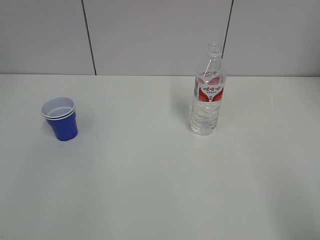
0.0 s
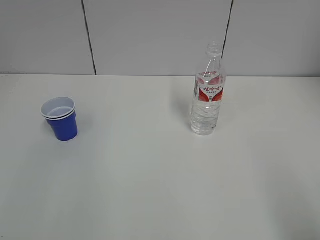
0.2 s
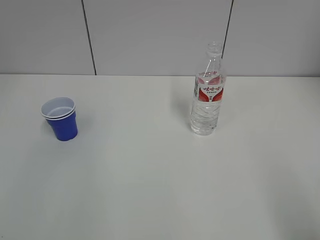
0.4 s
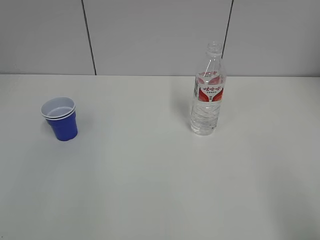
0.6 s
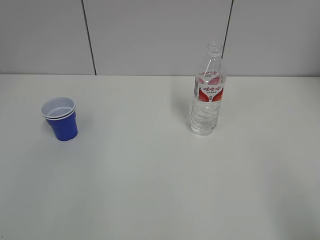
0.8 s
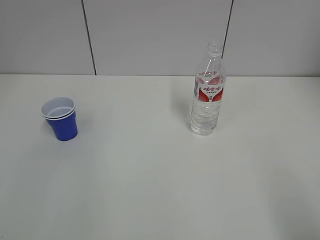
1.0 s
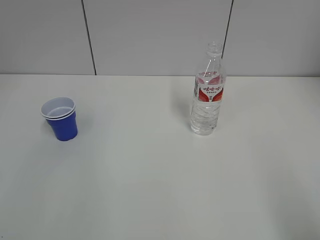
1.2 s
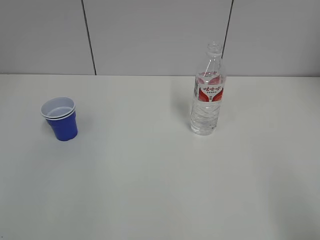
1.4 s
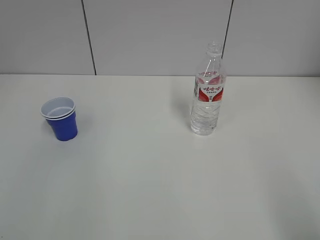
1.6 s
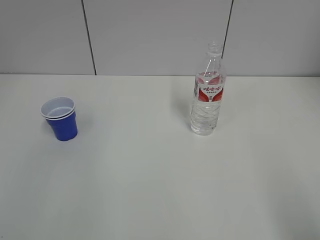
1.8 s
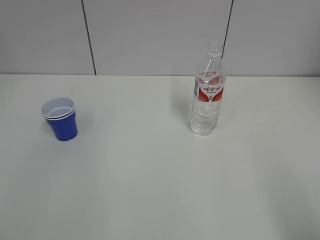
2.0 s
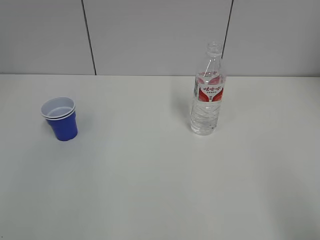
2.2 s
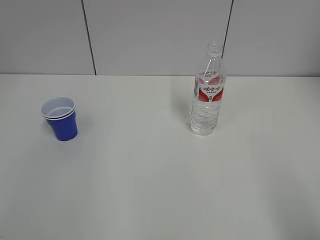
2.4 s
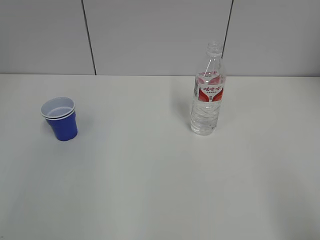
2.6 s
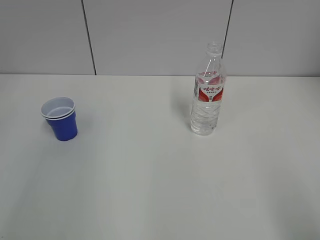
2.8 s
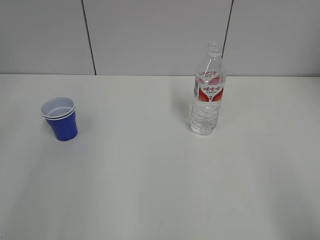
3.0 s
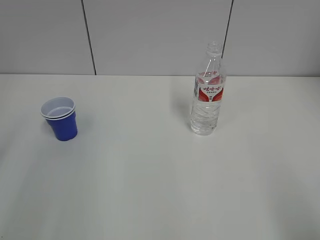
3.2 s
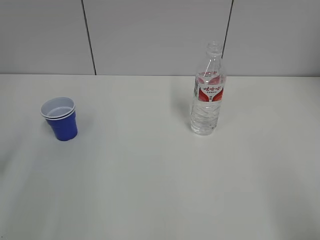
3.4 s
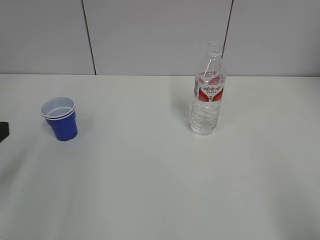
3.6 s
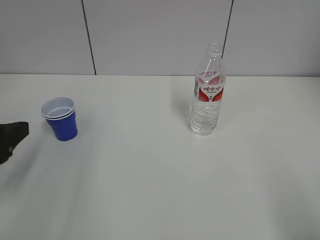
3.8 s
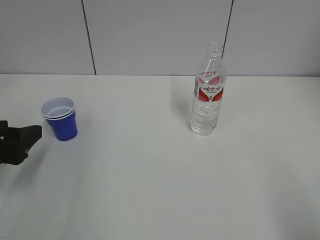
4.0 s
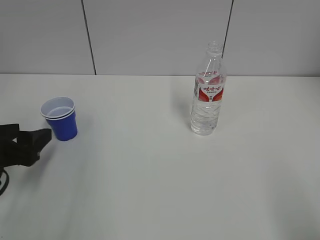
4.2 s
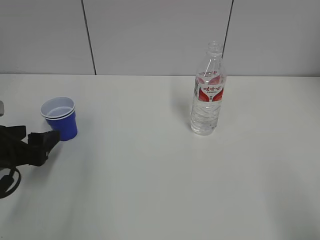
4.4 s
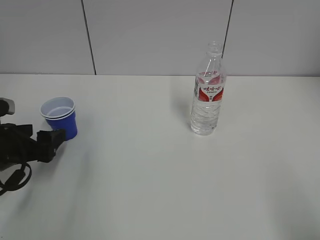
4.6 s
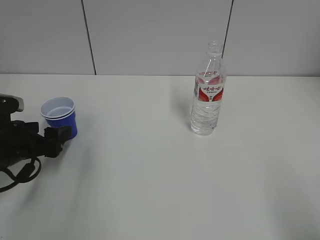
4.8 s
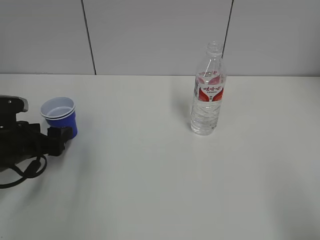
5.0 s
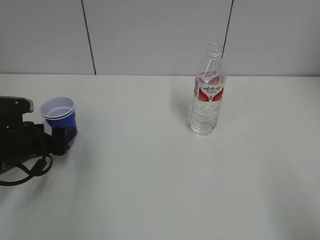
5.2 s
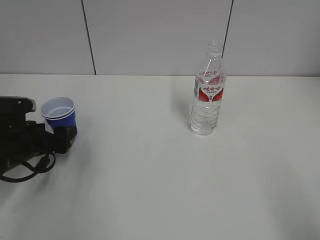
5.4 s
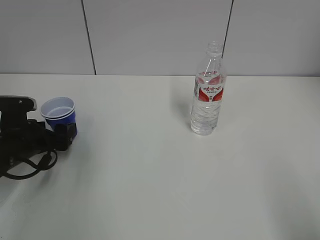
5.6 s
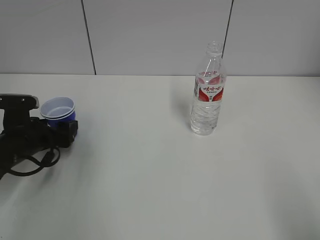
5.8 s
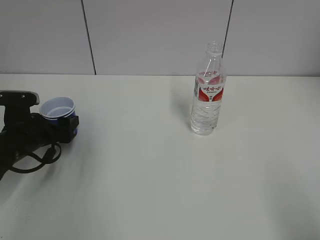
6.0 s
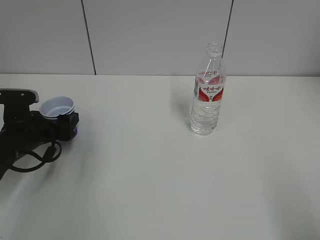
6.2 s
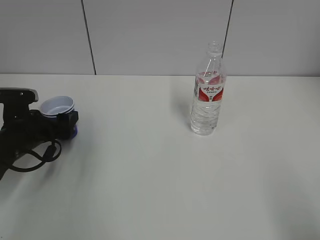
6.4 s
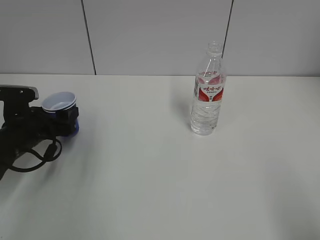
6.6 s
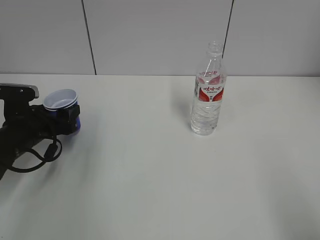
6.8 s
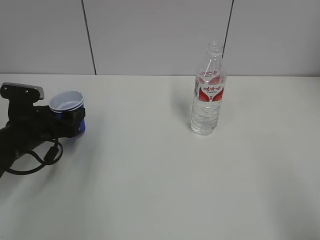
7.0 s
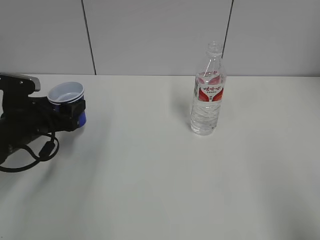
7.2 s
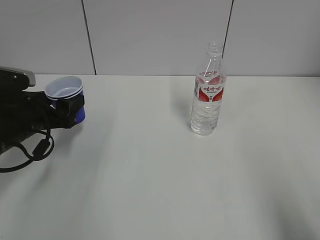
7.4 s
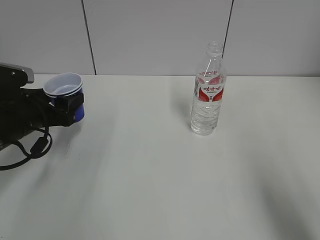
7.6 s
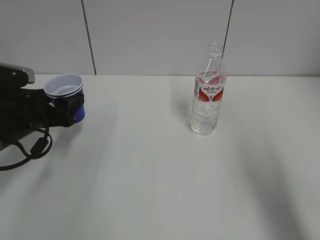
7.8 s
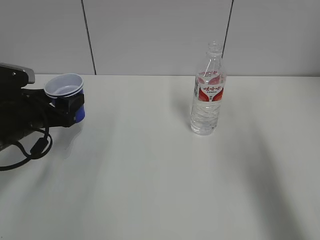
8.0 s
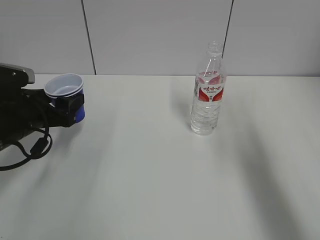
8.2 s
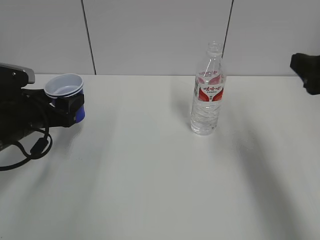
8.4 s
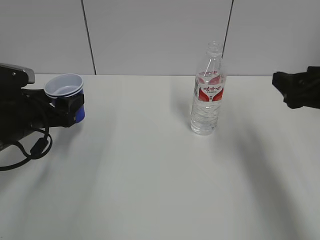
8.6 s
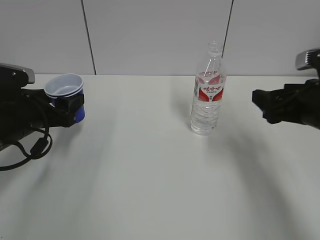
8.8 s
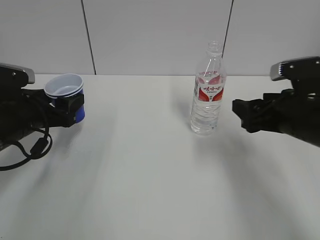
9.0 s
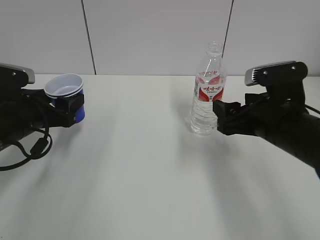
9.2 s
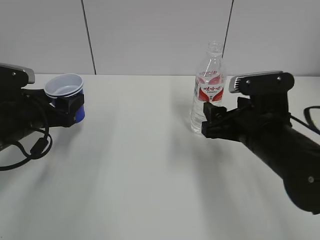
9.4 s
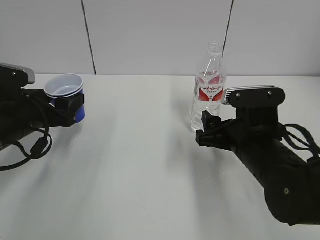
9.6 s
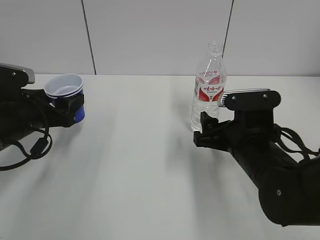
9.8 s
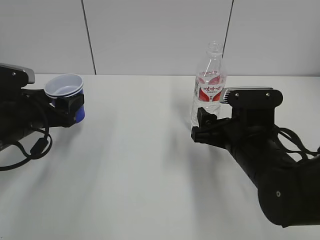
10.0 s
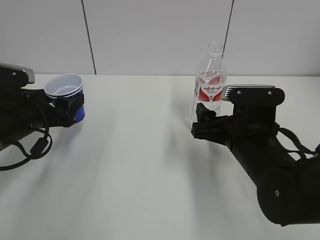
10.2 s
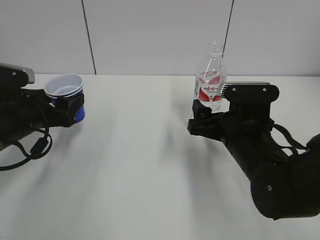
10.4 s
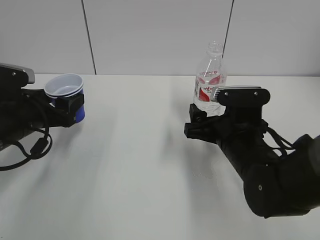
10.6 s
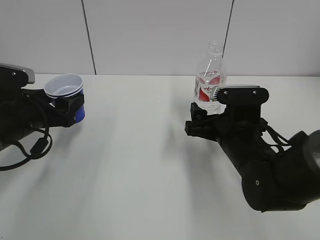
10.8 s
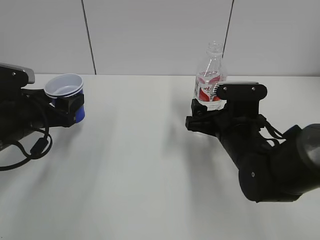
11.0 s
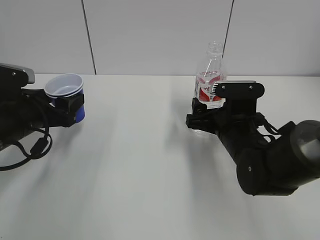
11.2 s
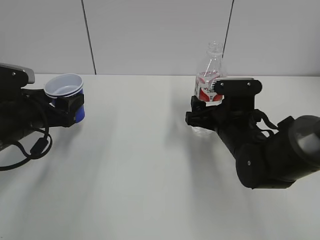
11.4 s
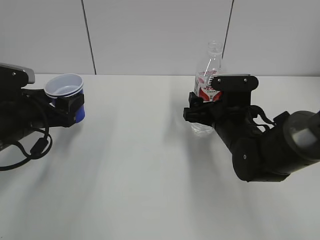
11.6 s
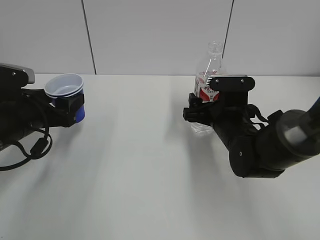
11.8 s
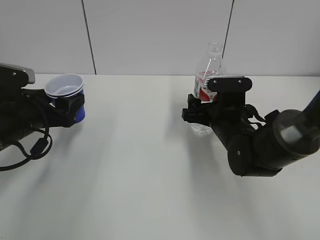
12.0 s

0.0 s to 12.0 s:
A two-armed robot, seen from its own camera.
Step, 0.0 to 6.2 s: Grab the paper cup with the left hand.
Step, 6.4 to 7.2 s: Lift the paper cup with the left hand.
3.0 to 4.4 s: The left gripper is displaced downward and forward by approximately 20 cm.
4.4 to 6.0 s: The left gripper goes about 10 cm forward and downward.
6.0 to 7.6 s: The left gripper shifts about 5 cm upward. Meanwhile the right gripper goes approximately 10 cm forward.
7.6 to 9.0 s: The right gripper shifts roughly 25 cm forward, downward and to the left.
9.0 to 10.4 s: The right gripper heads to the left, covering approximately 10 cm, and opens up.
10.4 to 12.0 s: The right gripper is displaced forward by some 10 cm.

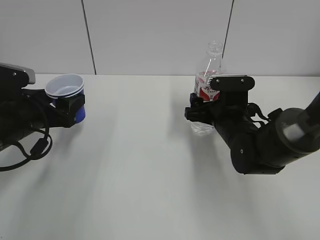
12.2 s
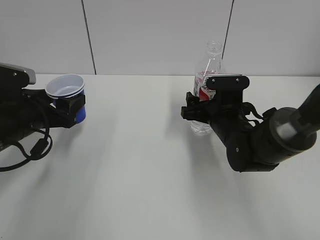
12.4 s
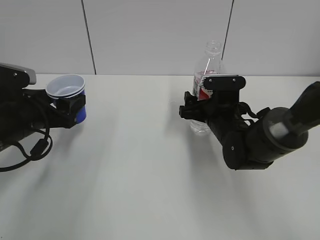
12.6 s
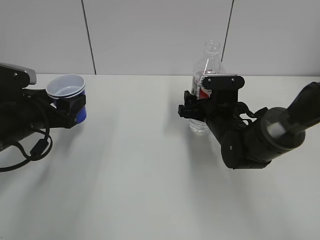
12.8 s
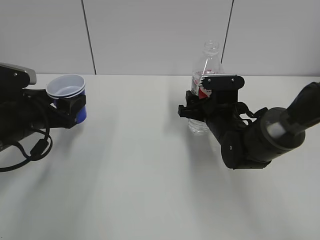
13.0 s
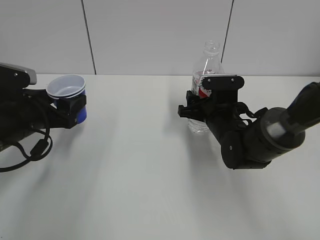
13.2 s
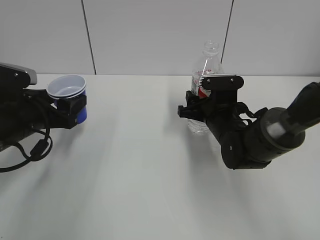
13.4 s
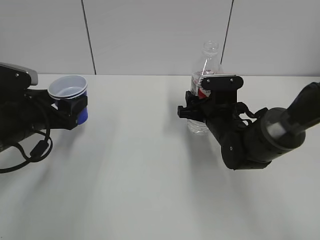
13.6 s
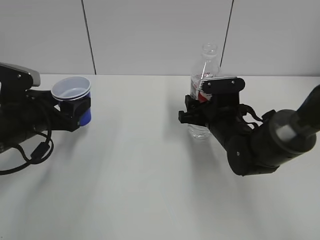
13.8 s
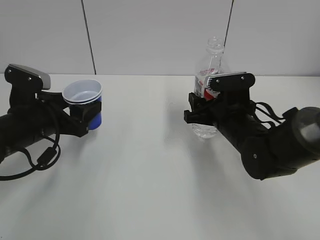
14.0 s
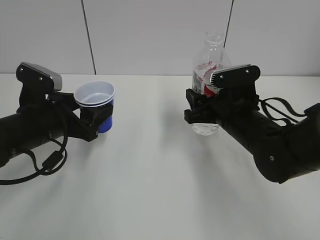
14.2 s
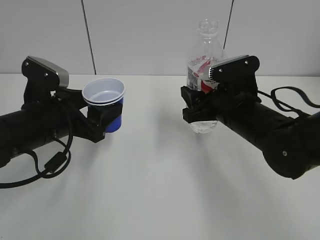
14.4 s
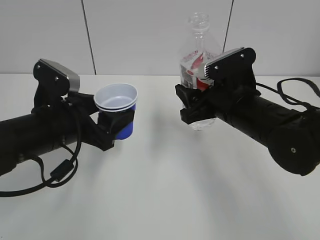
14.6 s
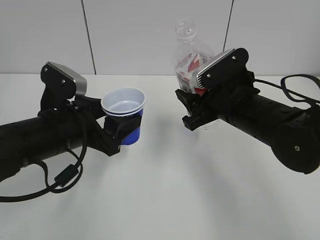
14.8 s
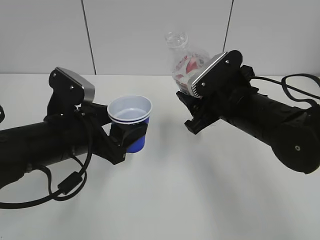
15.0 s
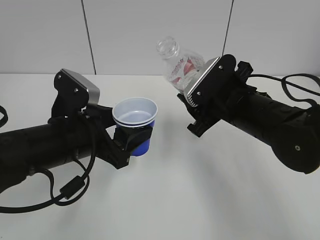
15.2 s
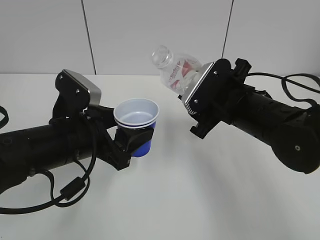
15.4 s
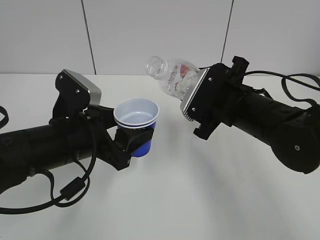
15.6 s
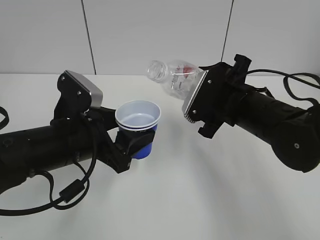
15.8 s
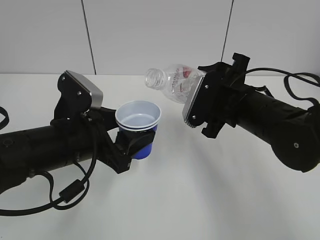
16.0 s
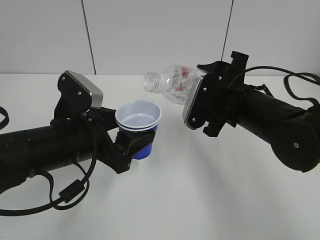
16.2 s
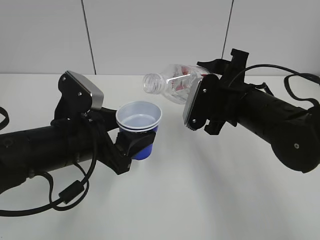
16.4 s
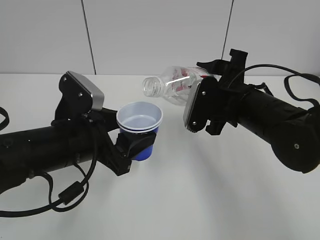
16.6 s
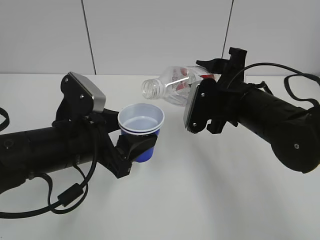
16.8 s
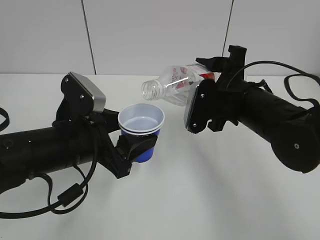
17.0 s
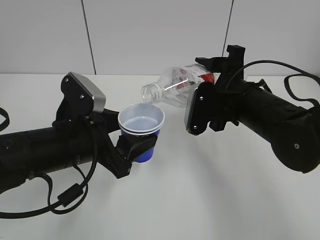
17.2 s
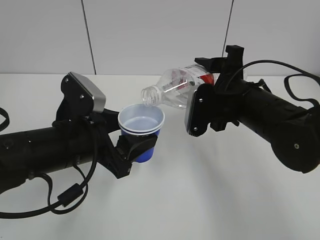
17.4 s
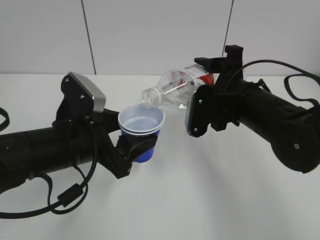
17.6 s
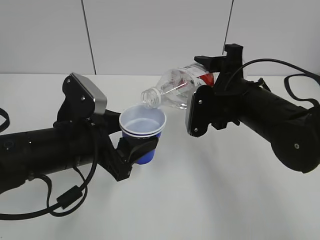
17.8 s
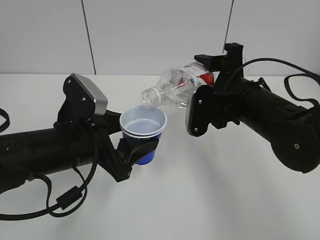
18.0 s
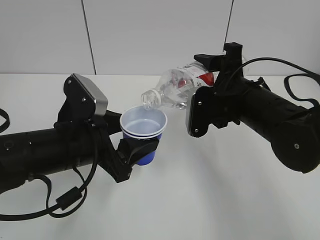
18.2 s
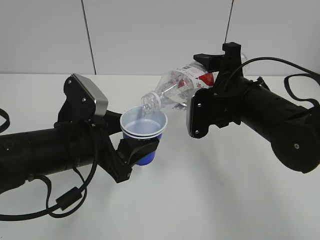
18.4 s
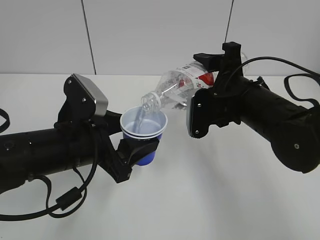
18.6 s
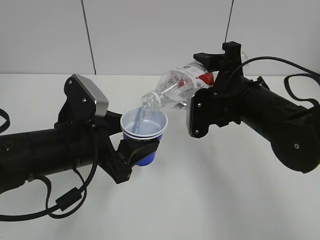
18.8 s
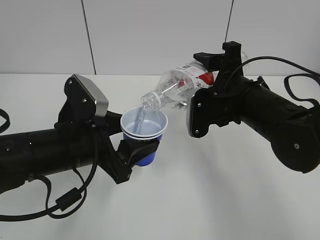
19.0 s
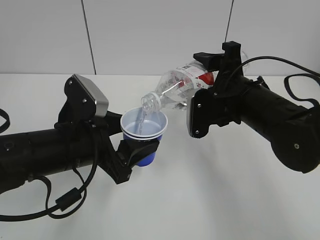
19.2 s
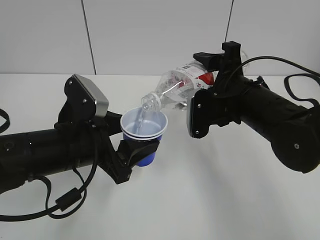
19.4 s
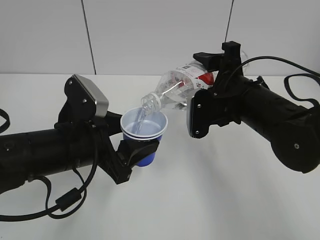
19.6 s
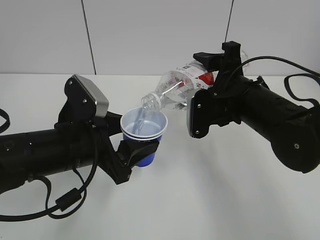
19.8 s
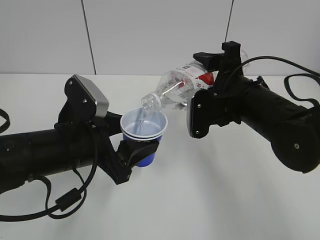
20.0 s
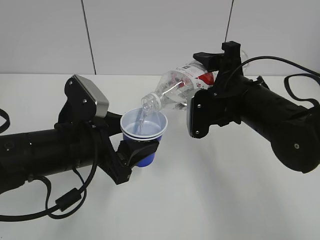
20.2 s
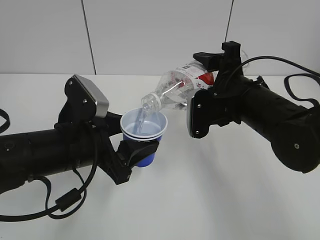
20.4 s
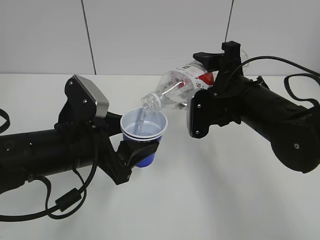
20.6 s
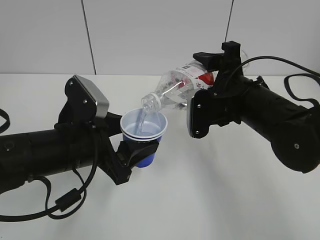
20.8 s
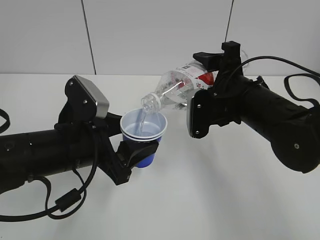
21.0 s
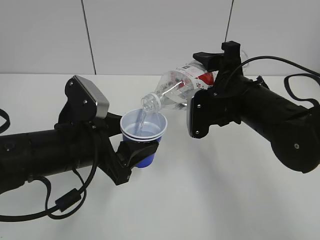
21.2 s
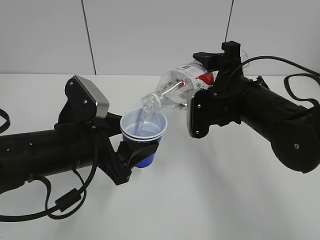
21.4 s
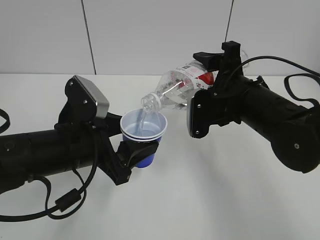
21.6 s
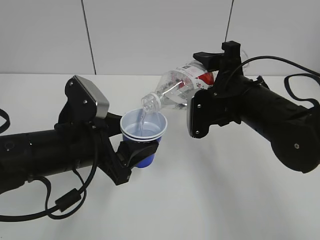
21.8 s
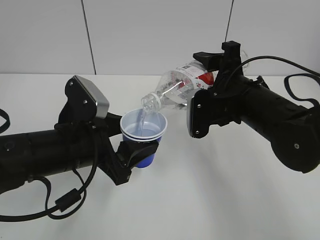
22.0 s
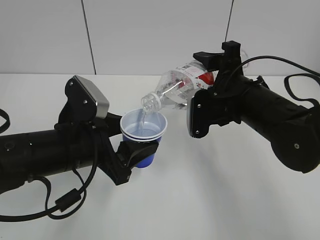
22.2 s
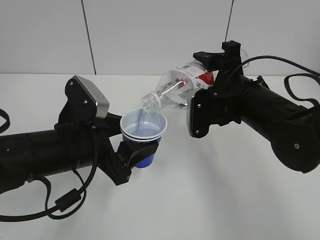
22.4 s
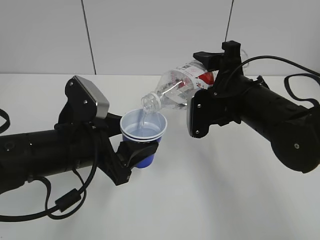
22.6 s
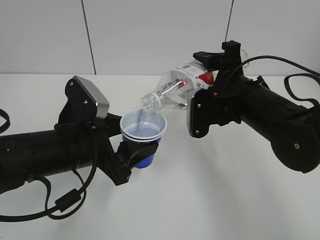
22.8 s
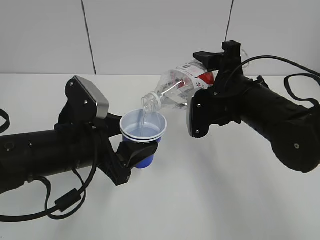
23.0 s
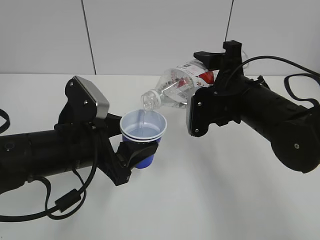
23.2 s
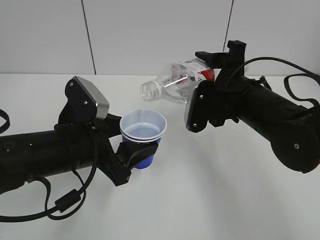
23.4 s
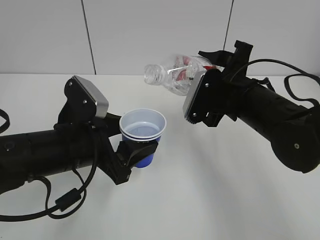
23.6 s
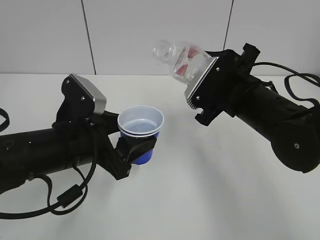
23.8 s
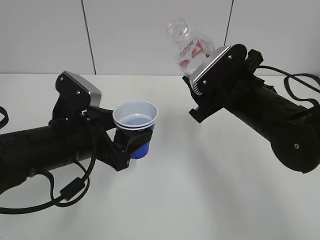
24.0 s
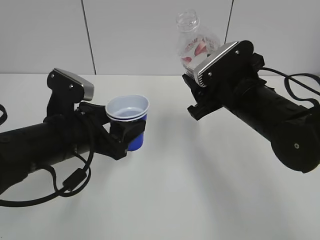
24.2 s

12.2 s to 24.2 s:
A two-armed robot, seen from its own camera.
Step, 13.6 to 23.6 s: Fill water with the left hand.
Step, 13.6 to 23.6 s: Pour water with the right hand.
12.2 to 13.8 s: The right gripper closes.
13.8 to 15.2 s: The left gripper goes some 10 cm to the right and backward. The right gripper shifts about 10 cm upward and backward.
16.6 to 18.2 s: The grippers move only a little.
18.2 to 22.6 s: Both grippers stay about where they are.
